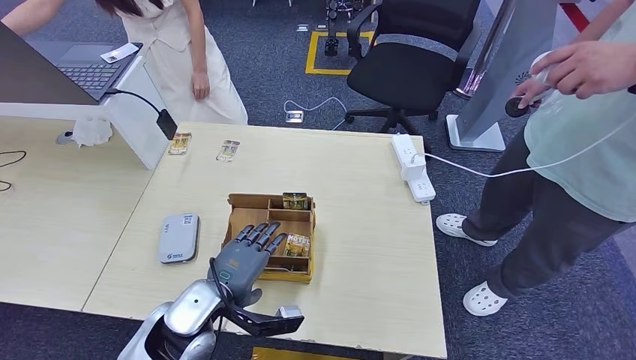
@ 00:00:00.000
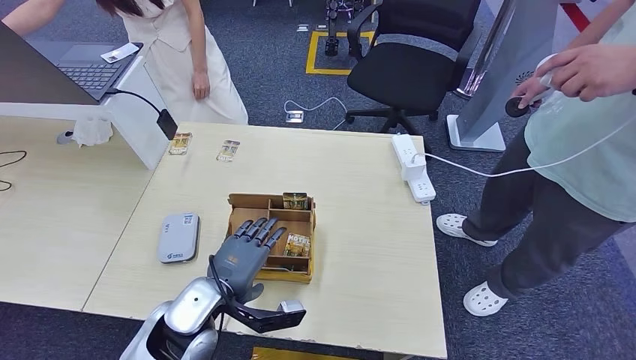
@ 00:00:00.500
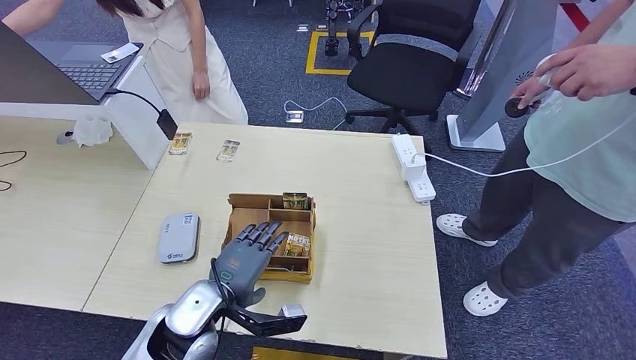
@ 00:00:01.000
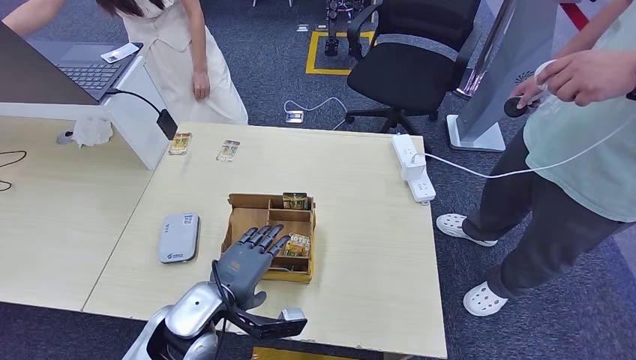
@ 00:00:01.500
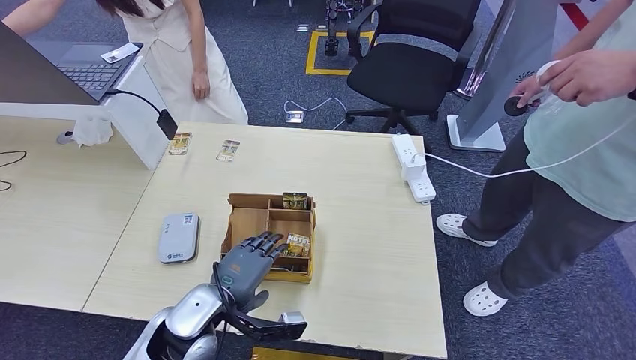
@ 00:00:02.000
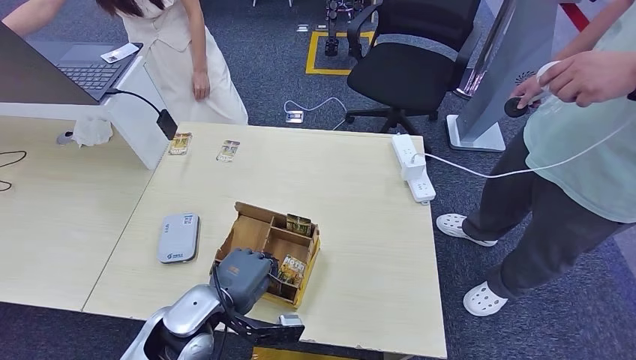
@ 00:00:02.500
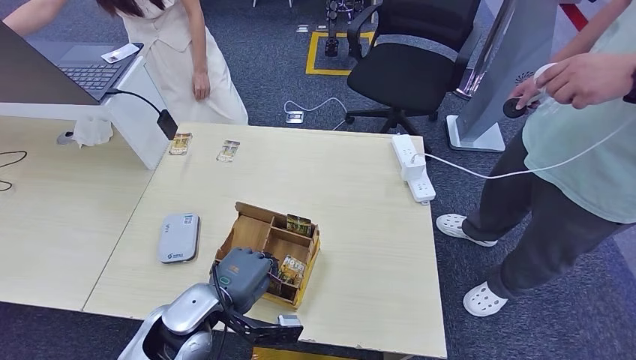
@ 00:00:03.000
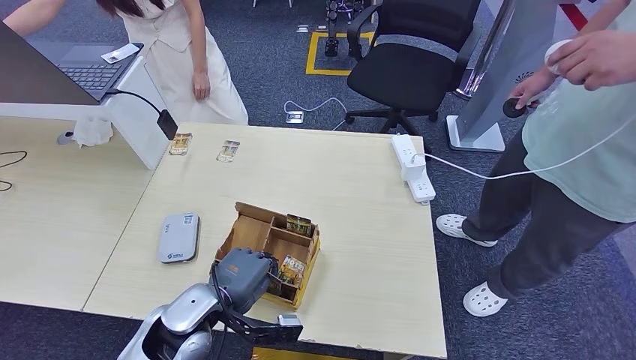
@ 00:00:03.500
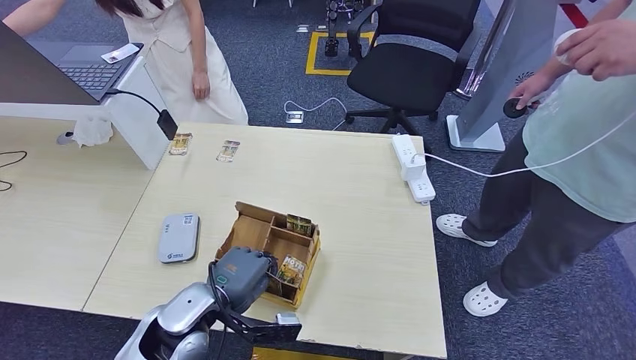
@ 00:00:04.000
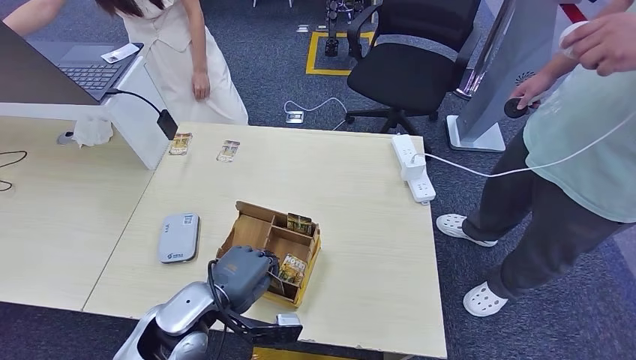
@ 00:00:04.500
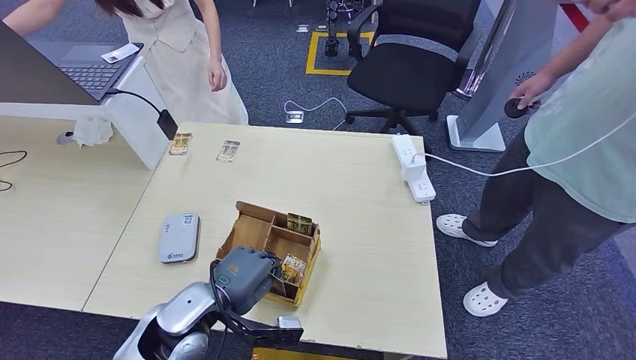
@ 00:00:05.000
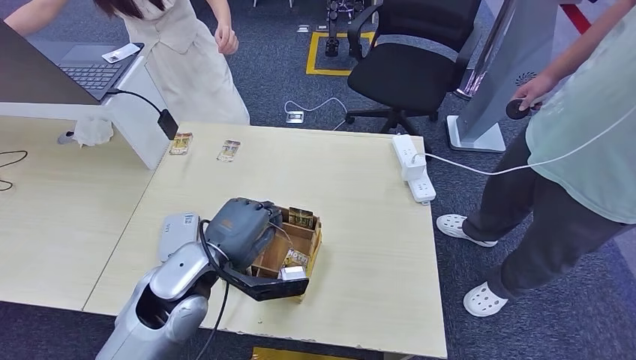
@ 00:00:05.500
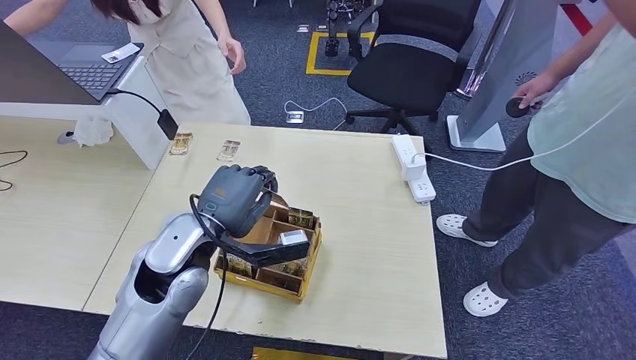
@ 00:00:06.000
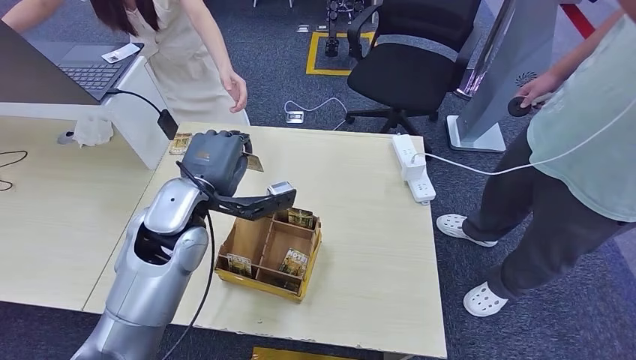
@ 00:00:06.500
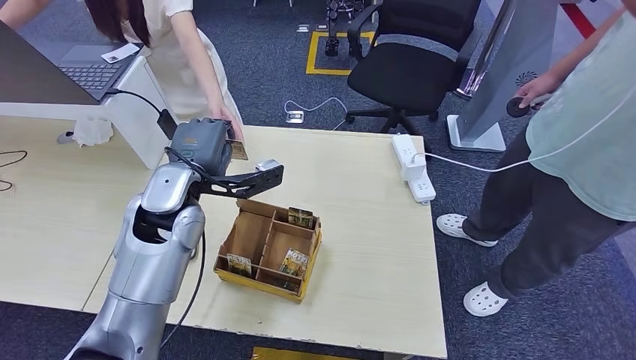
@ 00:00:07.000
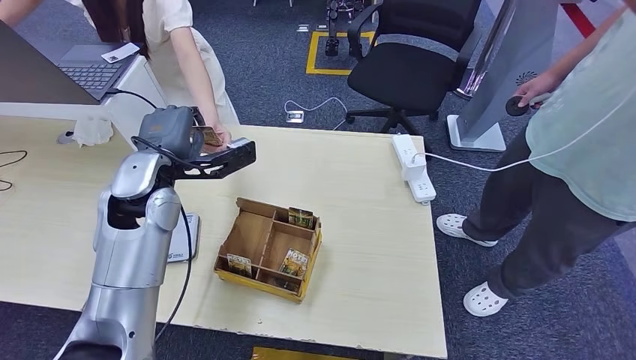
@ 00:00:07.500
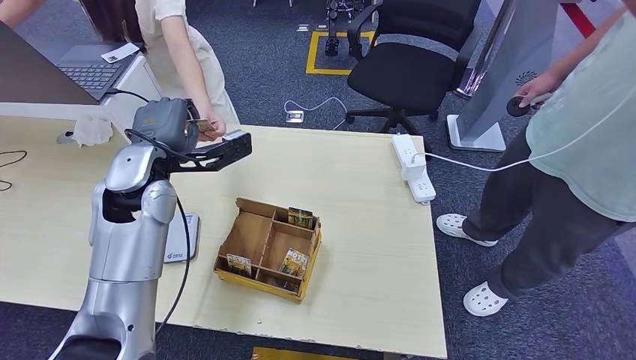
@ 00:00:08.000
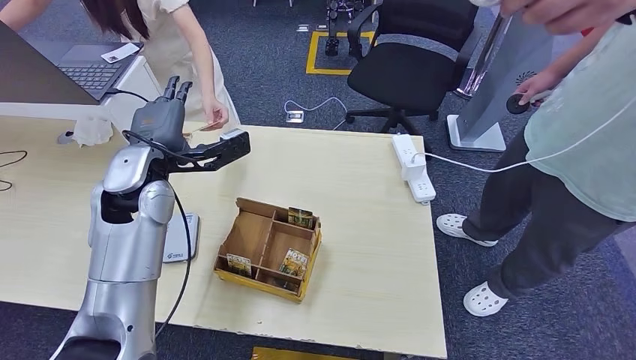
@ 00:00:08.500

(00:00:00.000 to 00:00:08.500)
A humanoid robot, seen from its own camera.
Step, 00:00:00.500 - 00:00:05.500: Pick up the room key from the key card box.
Step, 00:00:06.000 - 00:00:08.500: Hand the room key to the person.
00:00:00.000 - 00:00:02.000: Both hands stay about where they are.
00:00:02.000 - 00:00:04.000: The hands stay close to where they were, moving slightly.
00:00:04.000 - 00:00:06.500: The left hand shifts about 15 cm upward and forward.
00:00:06.500 - 00:00:08.500: The left hand moves to the left, some 5 cm.
